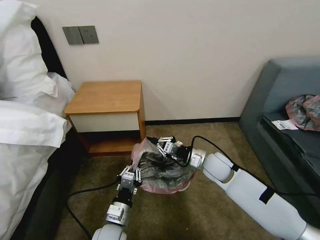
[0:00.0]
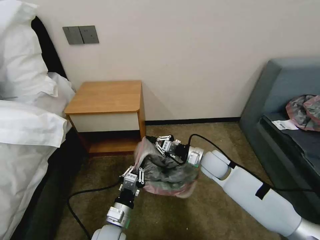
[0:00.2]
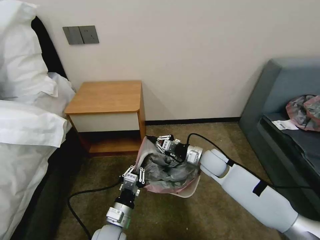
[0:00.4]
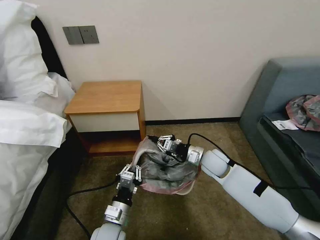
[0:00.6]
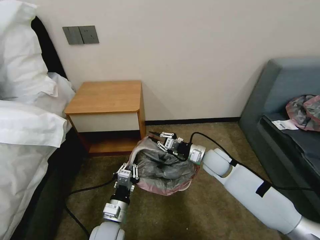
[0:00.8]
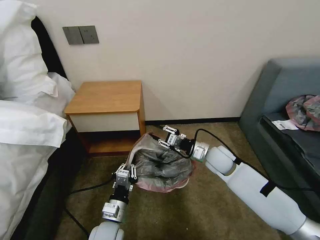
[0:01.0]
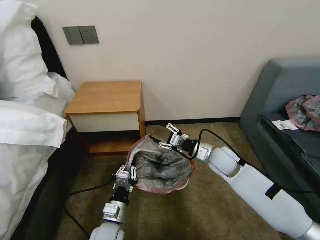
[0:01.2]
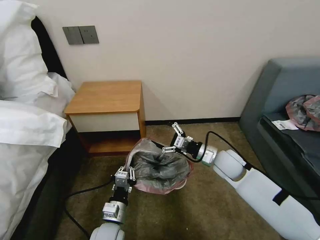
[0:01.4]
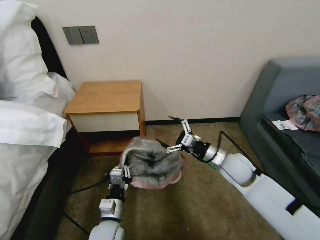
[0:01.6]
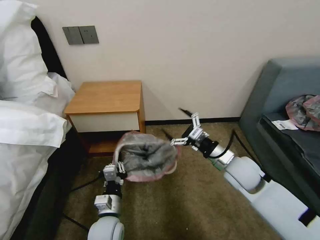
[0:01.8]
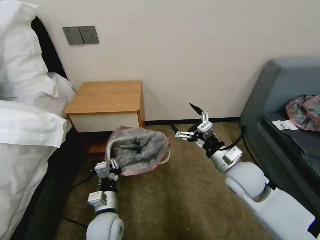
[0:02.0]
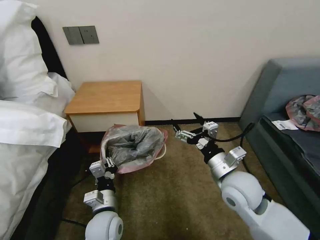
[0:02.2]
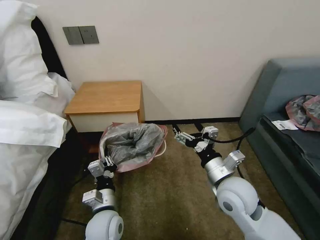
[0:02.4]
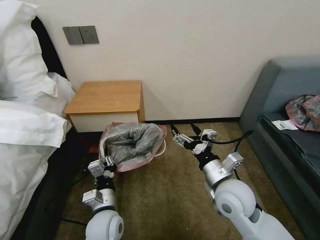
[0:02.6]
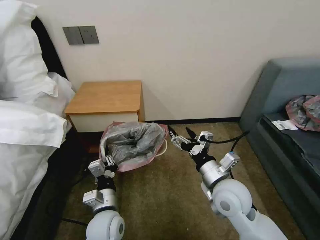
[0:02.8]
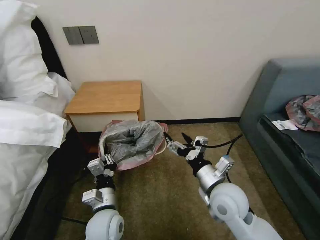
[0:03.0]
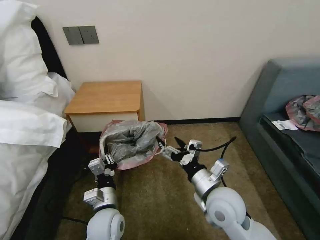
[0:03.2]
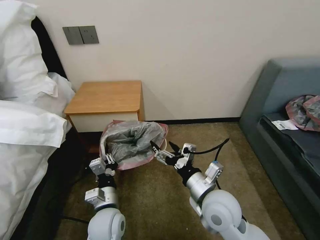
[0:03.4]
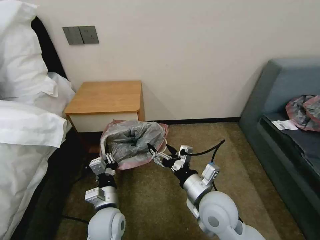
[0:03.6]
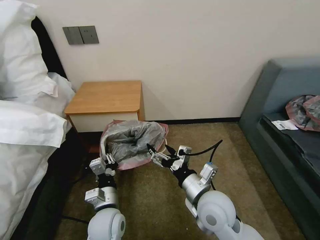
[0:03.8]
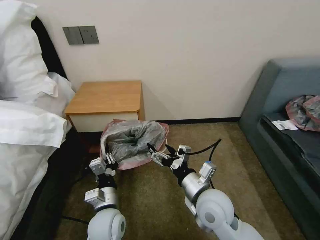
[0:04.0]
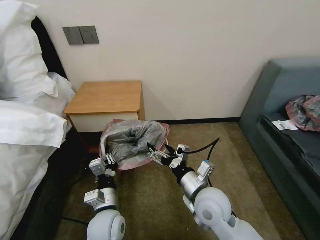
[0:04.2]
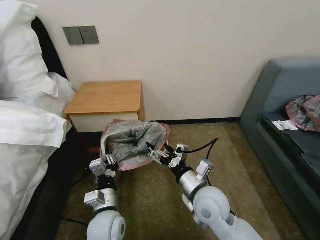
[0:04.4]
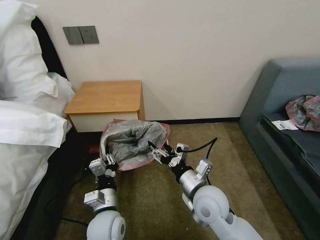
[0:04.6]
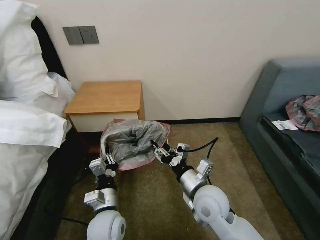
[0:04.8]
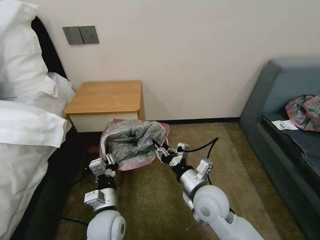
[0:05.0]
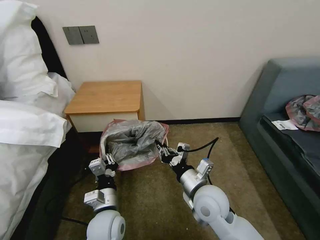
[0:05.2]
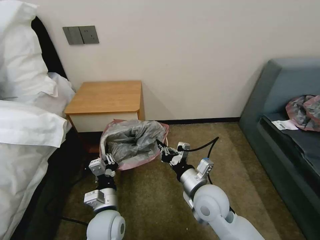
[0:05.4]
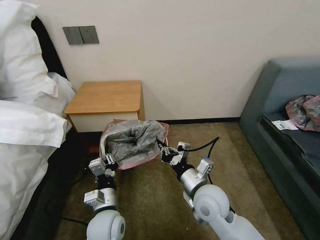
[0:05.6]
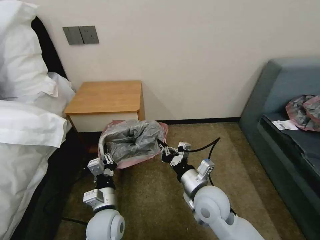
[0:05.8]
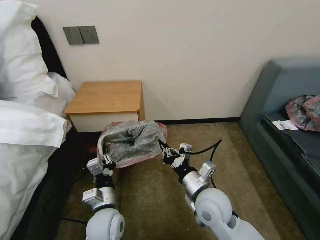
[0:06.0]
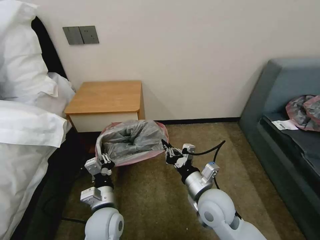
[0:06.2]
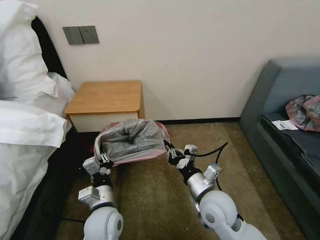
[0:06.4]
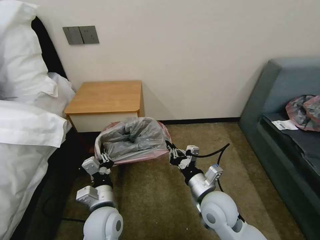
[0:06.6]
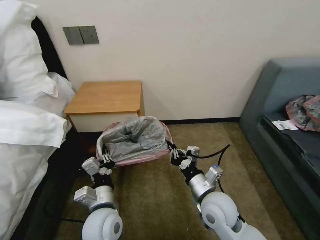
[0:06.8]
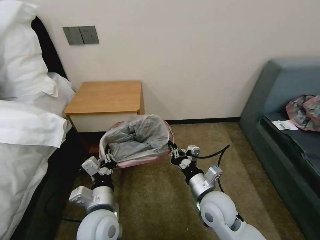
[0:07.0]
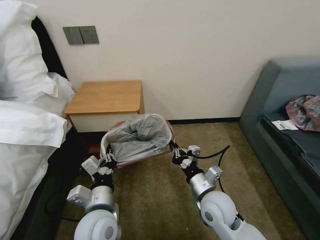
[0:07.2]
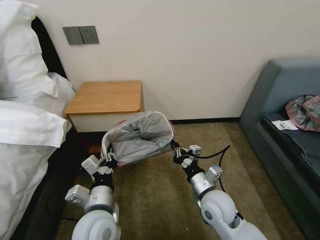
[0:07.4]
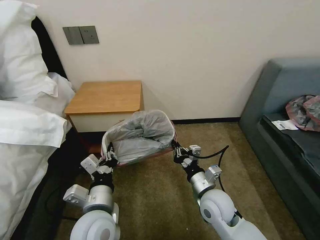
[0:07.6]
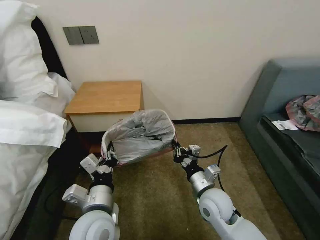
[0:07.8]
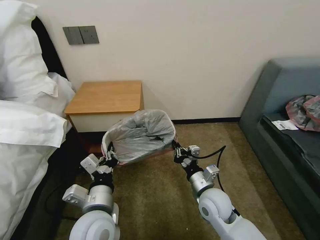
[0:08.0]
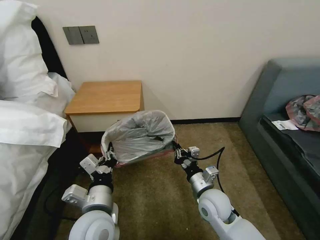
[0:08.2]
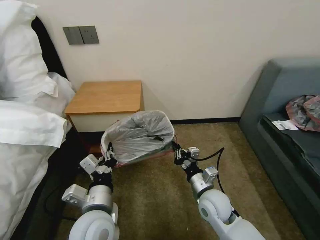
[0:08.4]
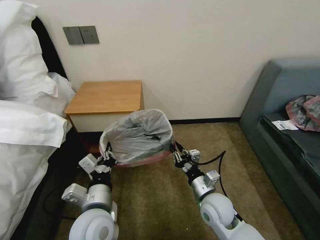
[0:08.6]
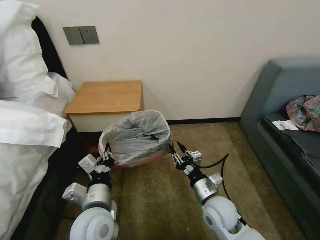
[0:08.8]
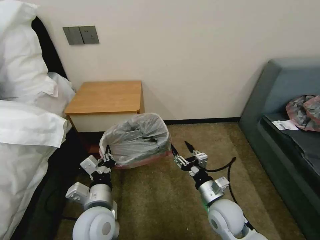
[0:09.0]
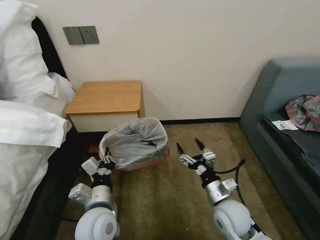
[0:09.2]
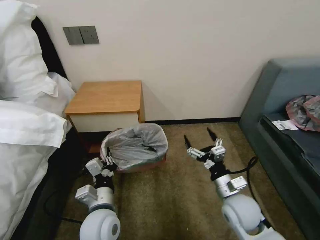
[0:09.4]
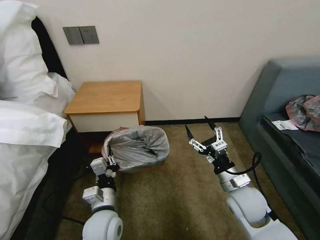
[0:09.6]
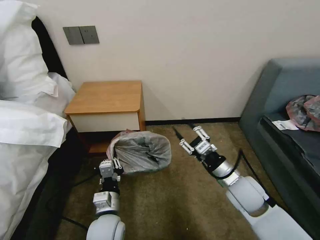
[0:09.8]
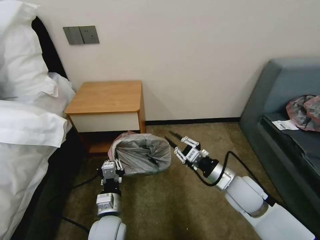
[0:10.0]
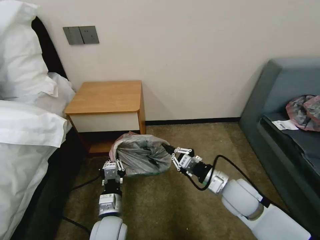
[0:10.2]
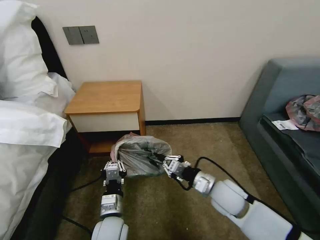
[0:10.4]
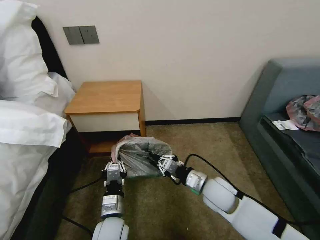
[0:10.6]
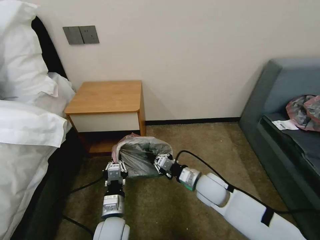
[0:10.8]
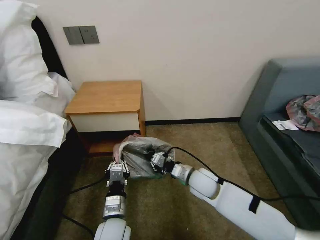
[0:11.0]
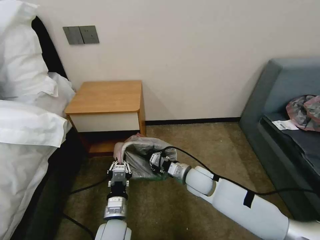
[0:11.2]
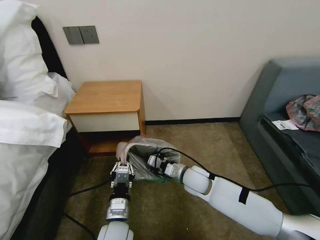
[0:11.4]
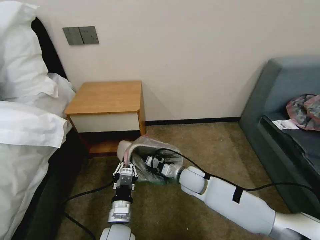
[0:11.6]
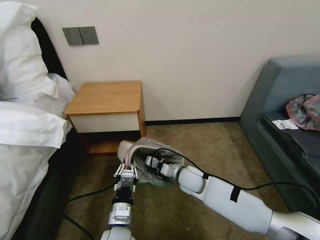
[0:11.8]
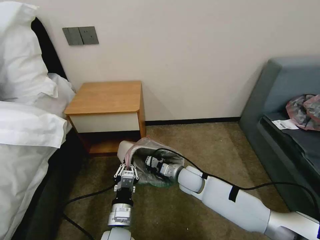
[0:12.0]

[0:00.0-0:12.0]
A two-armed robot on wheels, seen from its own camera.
Task of the whole recording: Pick up the garbage bag from the table and place it over the trash can.
0:00.0 to 0:01.6: The right gripper shifts by some 5 cm, and opens.
0:01.6 to 0:03.0: The right gripper shifts approximately 15 cm backward and to the left. The left gripper shifts about 5 cm upward.
0:03.0 to 0:04.4: There are only small adjustments of the grippers.
0:04.4 to 0:06.0: The right gripper closes up.
0:06.0 to 0:07.6: The right gripper shifts by roughly 5 cm. Meanwhile the left gripper is displaced upward by approximately 10 cm.
0:07.6 to 0:09.0: The right gripper opens its fingers.
0:09.0 to 0:10.4: The left gripper goes some 10 cm downward. Meanwhile the right gripper closes.
0:10.4 to 0:12.0: The right gripper shifts some 15 cm to the left, forward and downward.

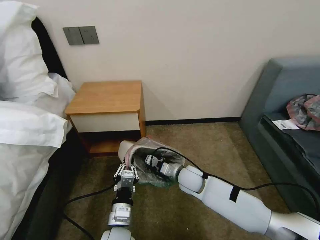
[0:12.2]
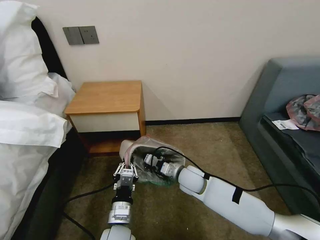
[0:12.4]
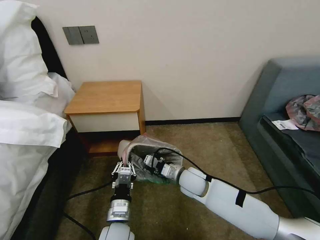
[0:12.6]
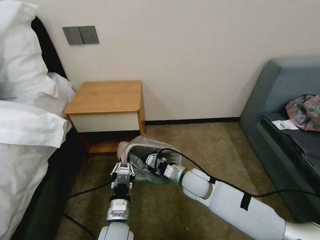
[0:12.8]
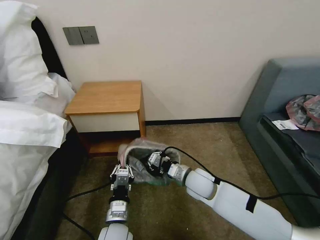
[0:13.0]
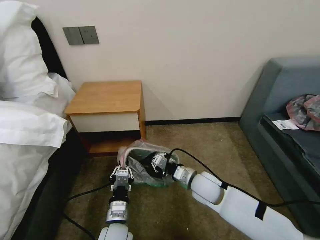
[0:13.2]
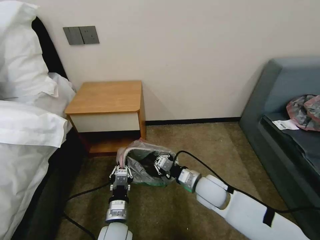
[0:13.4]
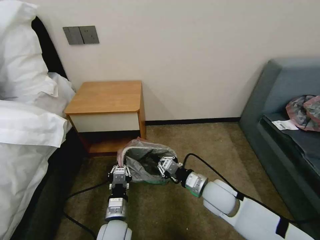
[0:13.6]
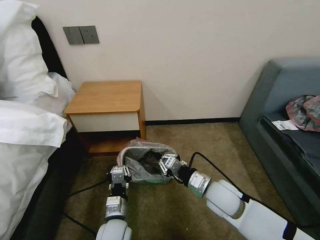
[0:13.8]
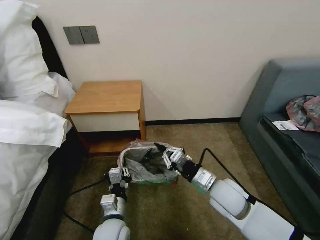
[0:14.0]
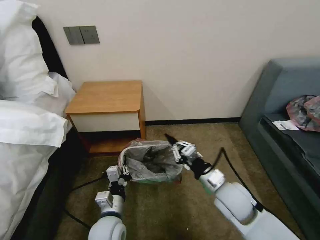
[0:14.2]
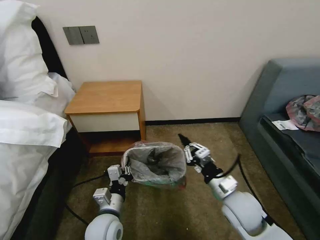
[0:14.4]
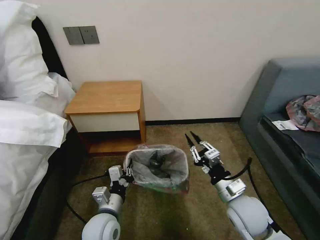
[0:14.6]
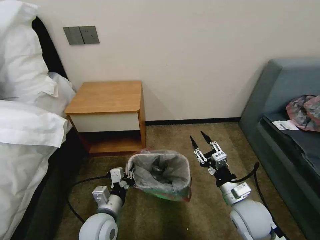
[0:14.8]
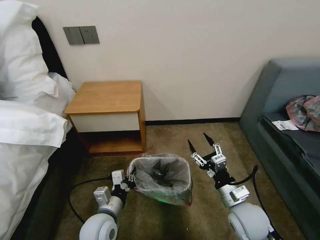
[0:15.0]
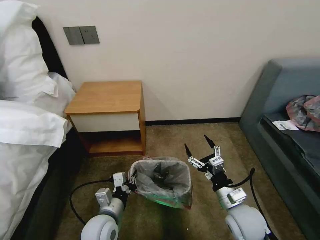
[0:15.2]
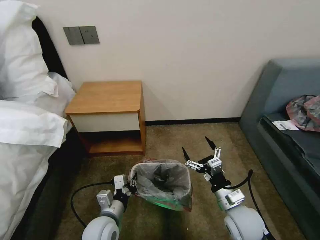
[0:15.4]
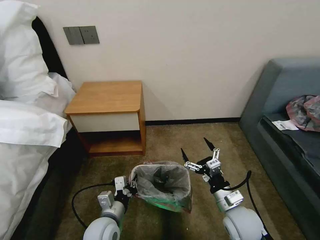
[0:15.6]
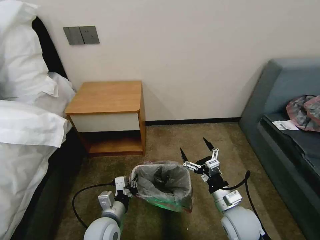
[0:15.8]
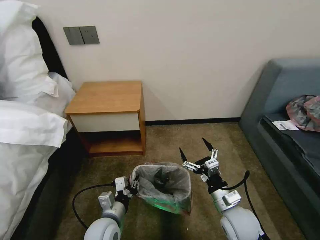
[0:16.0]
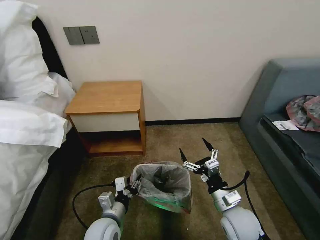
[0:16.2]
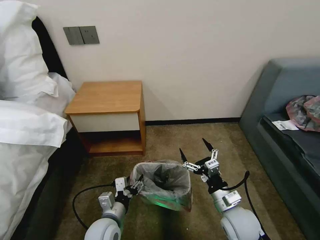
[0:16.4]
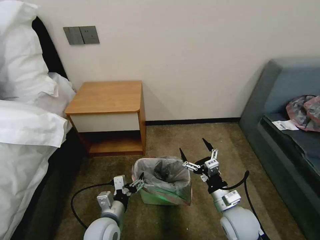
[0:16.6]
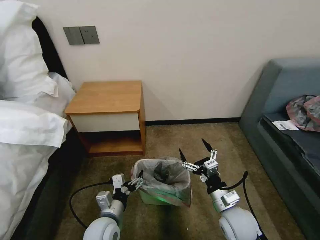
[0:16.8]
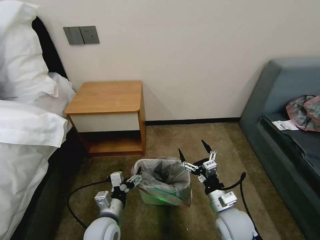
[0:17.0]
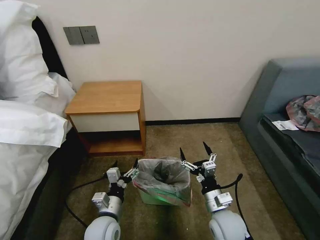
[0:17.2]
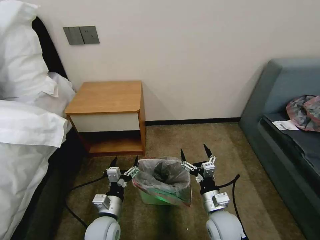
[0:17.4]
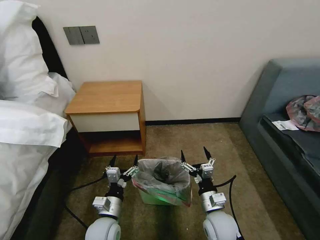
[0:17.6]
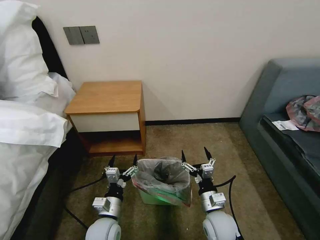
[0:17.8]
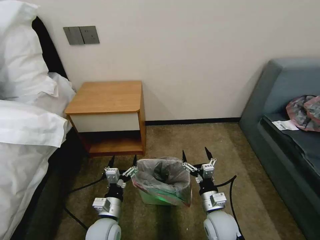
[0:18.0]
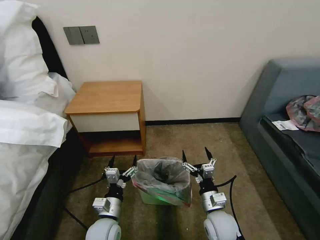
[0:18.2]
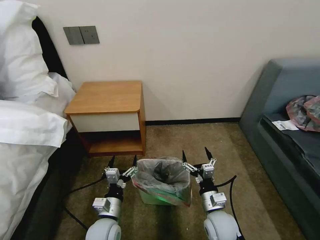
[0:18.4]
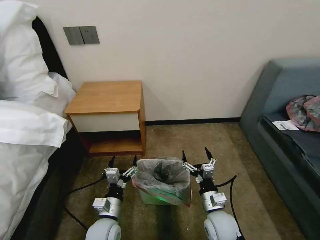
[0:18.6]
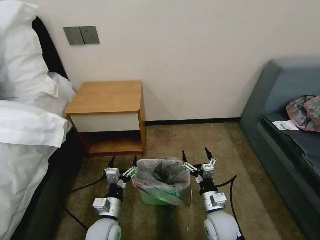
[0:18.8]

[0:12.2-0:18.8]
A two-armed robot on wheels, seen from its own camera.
Task of the whole recording: Pick up the garbage bag from the table and place it over the trash can.
0:12.2 to 0:13.8: The right gripper goes some 15 cm backward, upward and to the right.
0:13.8 to 0:15.4: The right gripper goes approximately 10 cm backward and to the right, and opens.
0:15.4 to 0:17.2: The right gripper shifts by approximately 5 cm. The left gripper opens up.
0:17.2 to 0:18.8: There are only small adjustments of the grippers.

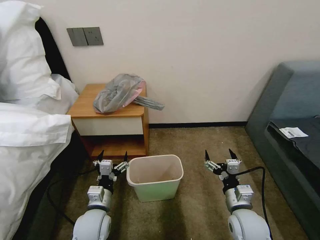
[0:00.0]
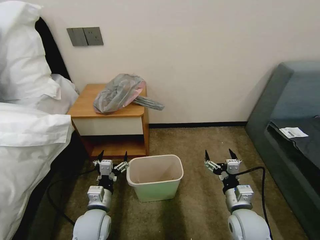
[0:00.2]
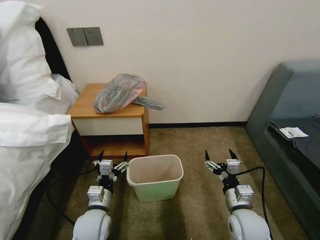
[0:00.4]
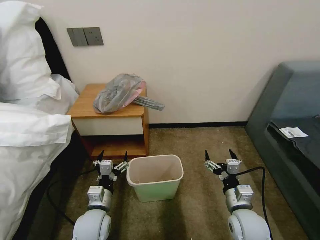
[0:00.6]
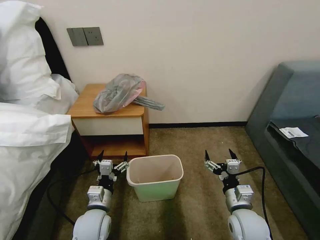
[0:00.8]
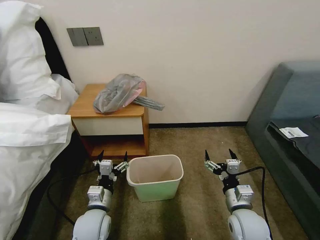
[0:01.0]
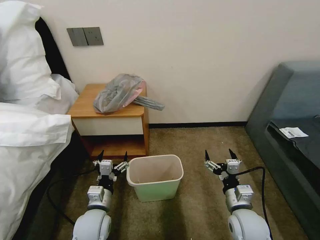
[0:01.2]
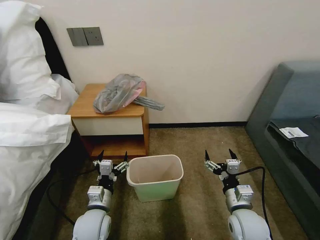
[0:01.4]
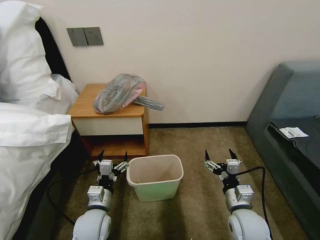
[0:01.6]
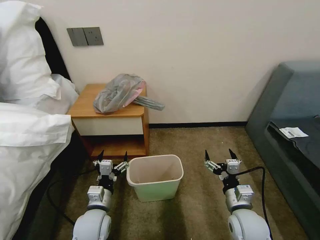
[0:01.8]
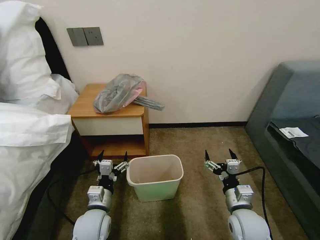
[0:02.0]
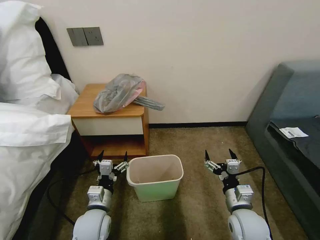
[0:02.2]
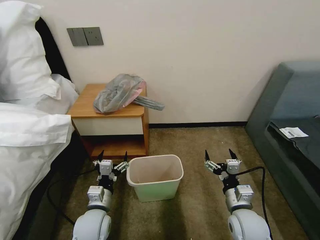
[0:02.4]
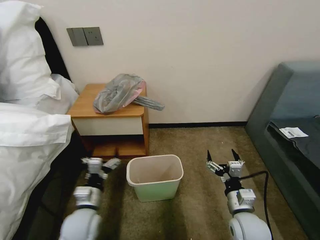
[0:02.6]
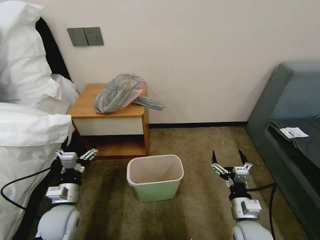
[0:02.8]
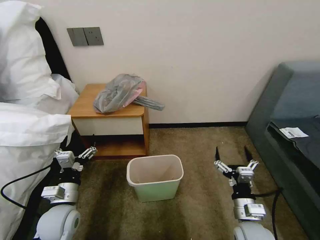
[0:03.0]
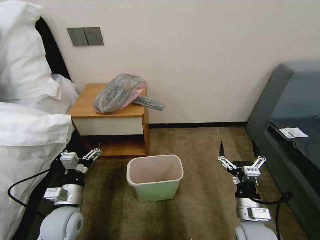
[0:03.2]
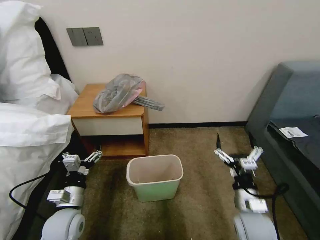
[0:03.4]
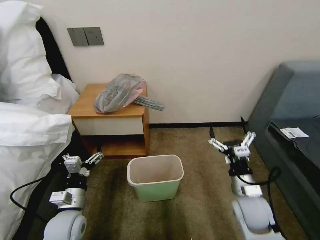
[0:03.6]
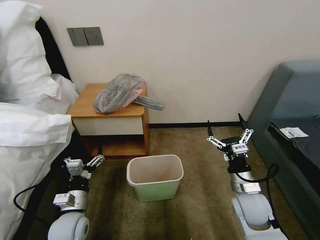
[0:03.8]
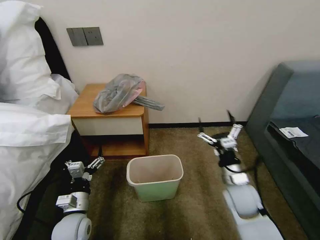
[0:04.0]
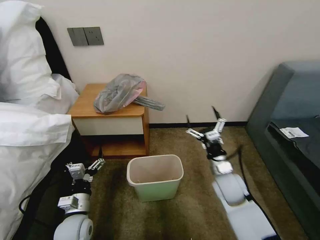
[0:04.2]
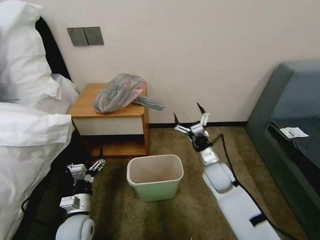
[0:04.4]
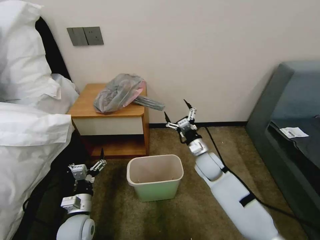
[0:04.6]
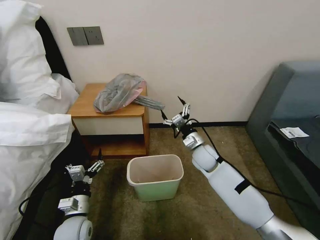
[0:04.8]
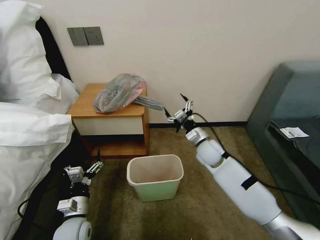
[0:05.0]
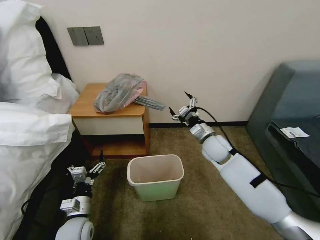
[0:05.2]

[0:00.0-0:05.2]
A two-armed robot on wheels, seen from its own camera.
Task of the whole recording: Pick up the garbage bag from the table and place it over the trash can.
0:01.8 to 0:03.4: The left gripper shifts roughly 10 cm to the left.
0:03.4 to 0:05.2: The left gripper travels downward by roughly 5 cm; the right gripper moves forward, some 25 cm.
